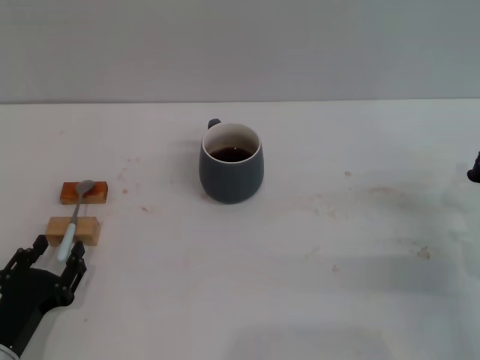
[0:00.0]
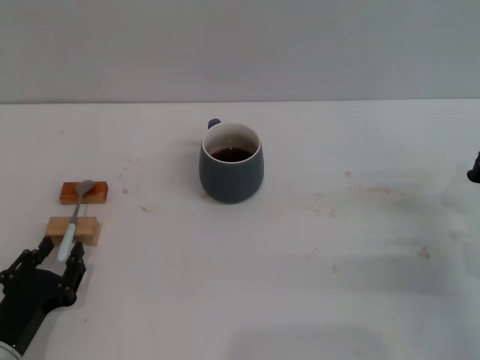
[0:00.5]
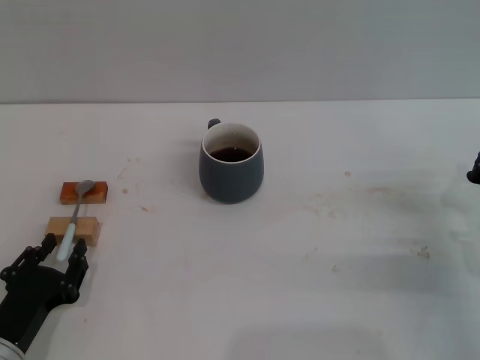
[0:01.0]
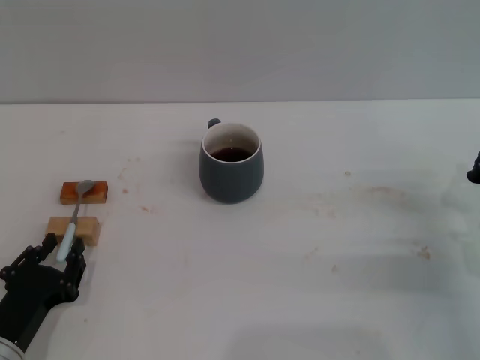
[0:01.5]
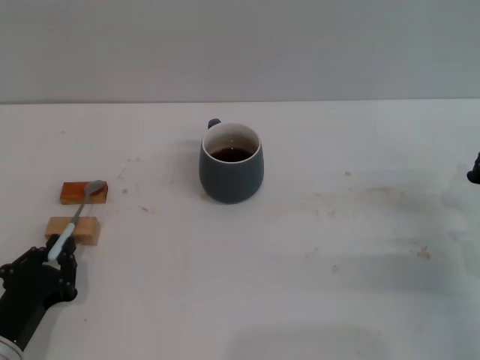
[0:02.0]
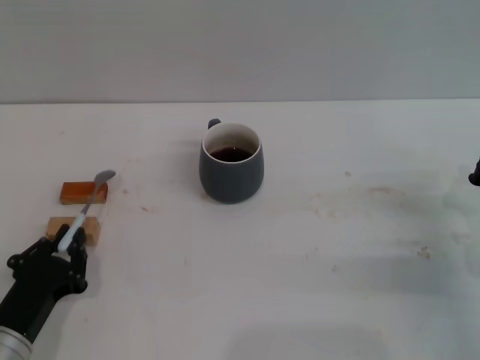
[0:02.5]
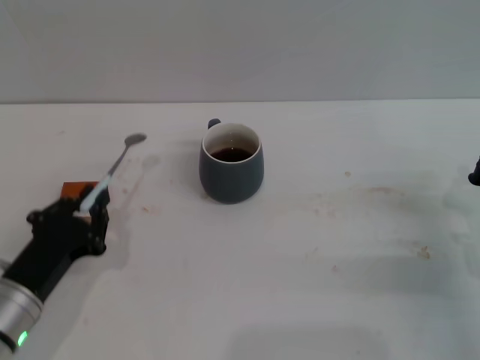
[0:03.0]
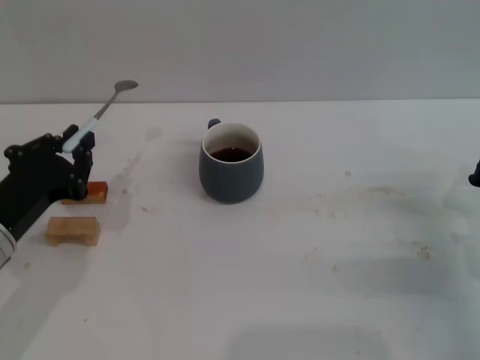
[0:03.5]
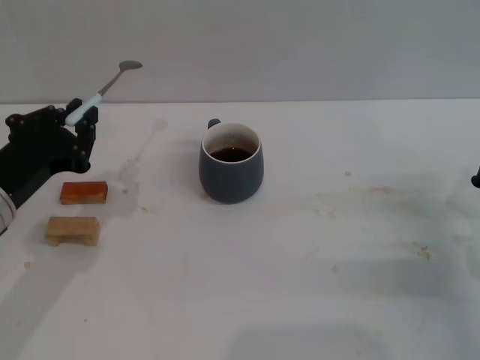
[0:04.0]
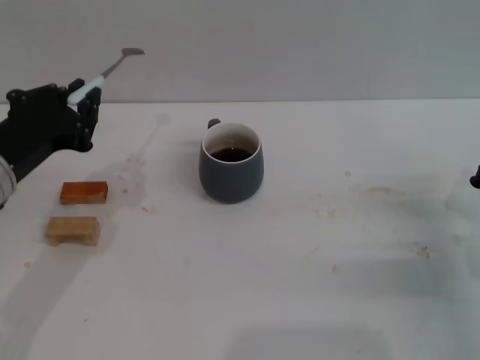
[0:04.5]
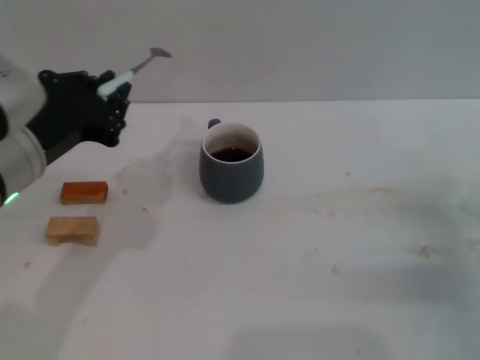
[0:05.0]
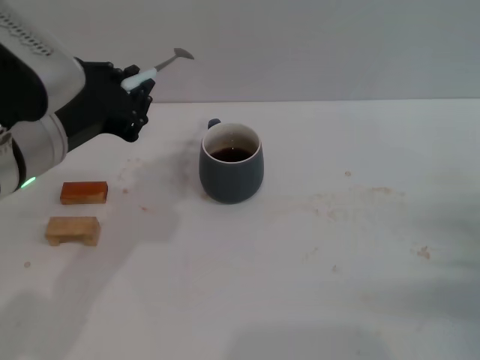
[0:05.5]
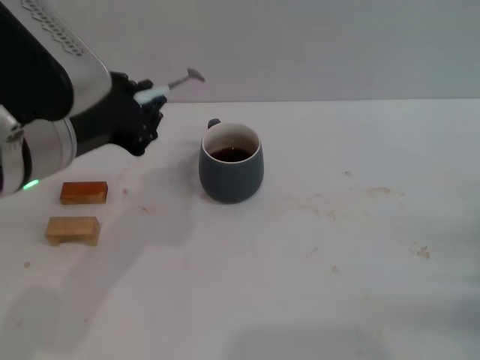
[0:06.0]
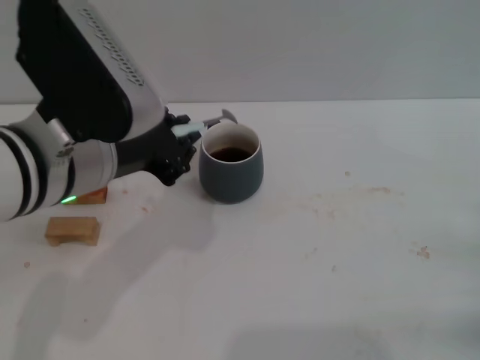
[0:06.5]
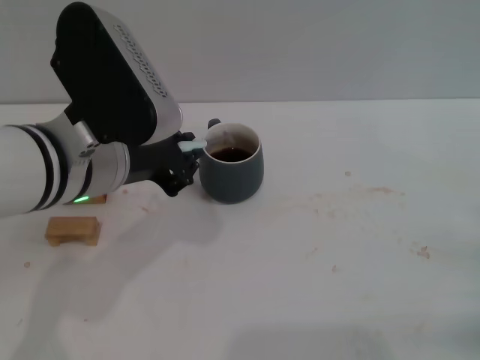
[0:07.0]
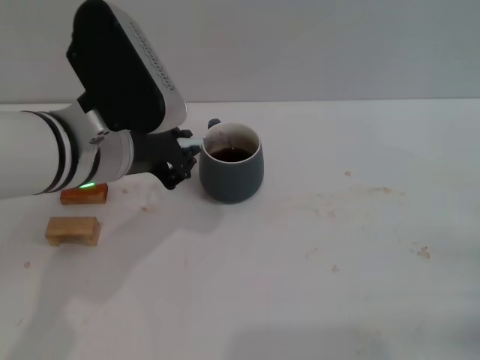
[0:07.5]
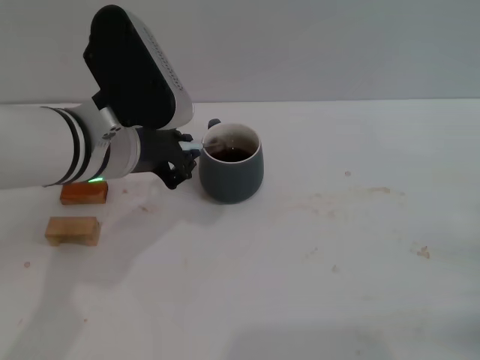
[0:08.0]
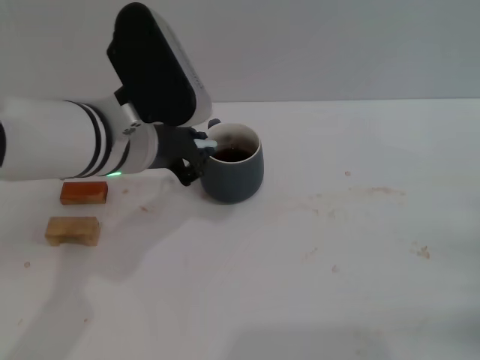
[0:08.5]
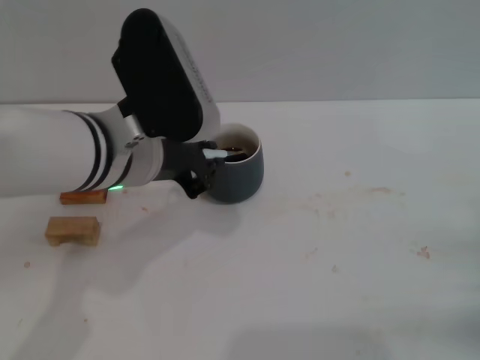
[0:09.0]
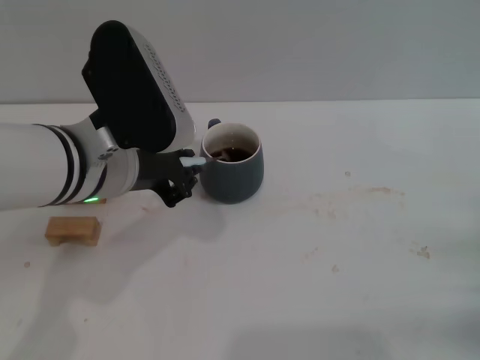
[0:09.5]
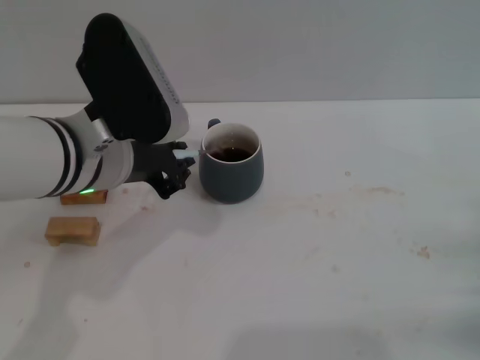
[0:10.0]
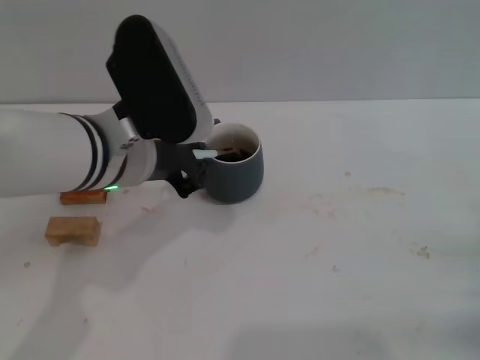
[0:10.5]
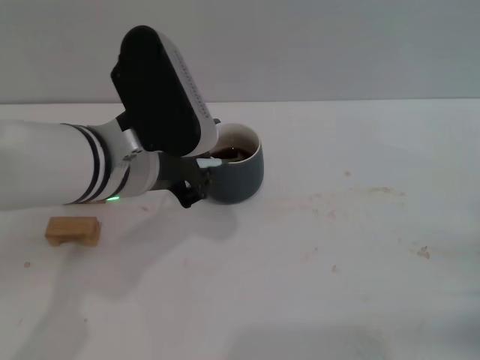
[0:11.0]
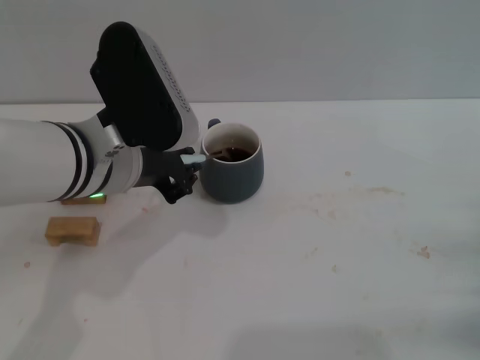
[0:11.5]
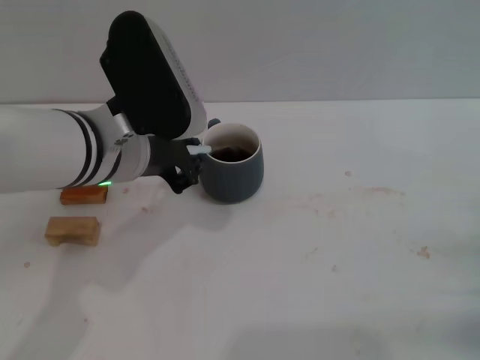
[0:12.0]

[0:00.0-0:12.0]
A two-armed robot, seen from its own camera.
Task of the whole recording: Move the grey cup to the center, lift the blue spoon, stir it three times in the cup, and put the spoon into the cup.
Step, 0:00.0 to 0:04.0: Pick up the spoon with the left gripper.
0:00.0 to 0:02.0: The left gripper closes its fingers.
0:02.0 to 0:04.0: The left gripper travels upward and forward by roughly 15 cm.
0:04.0 to 0:06.0: The right gripper shifts by approximately 5 cm. Meanwhile the left gripper moves upward and to the right, some 15 cm.
0:06.0 to 0:08.0: The left gripper shifts some 5 cm forward.
0:08.0 to 0:12.0: The grippers move only a little.

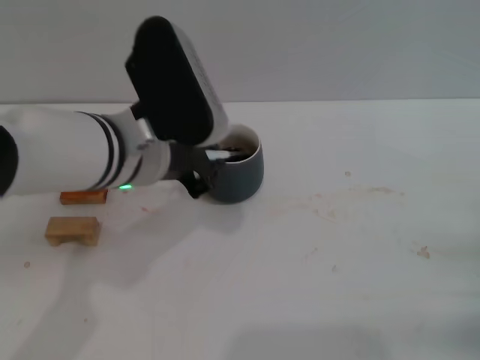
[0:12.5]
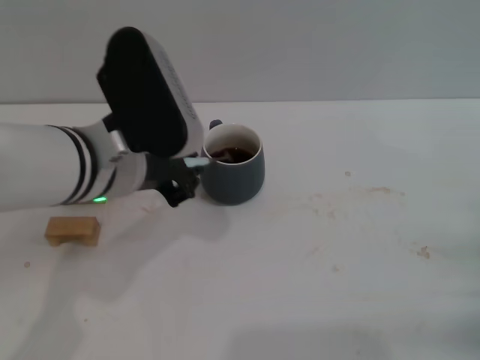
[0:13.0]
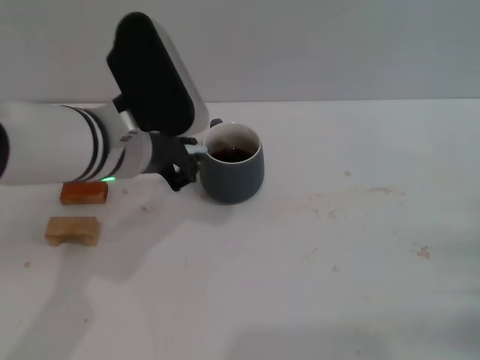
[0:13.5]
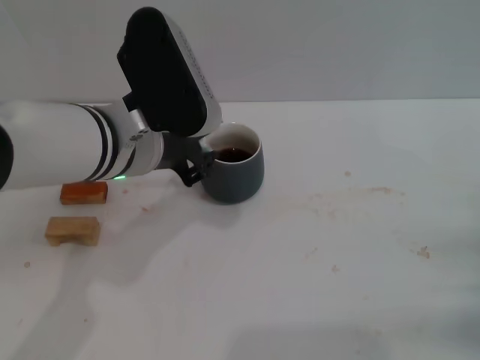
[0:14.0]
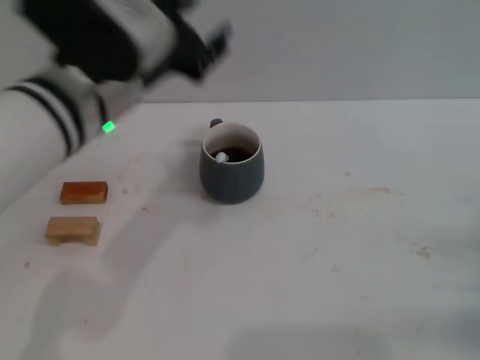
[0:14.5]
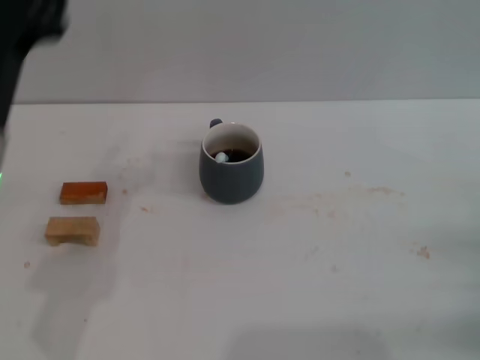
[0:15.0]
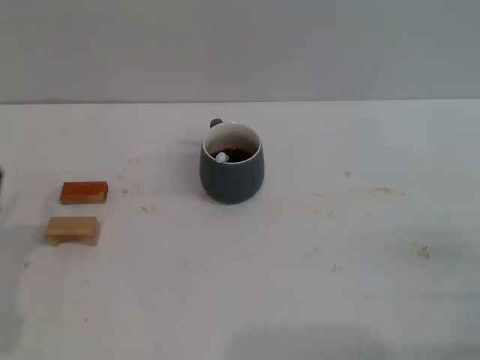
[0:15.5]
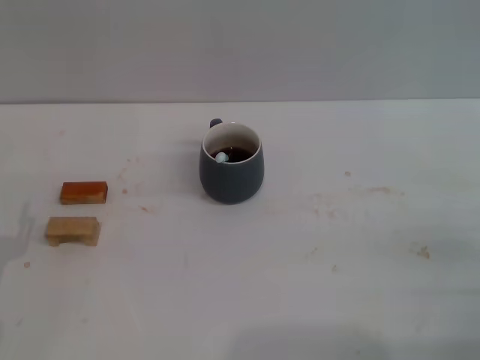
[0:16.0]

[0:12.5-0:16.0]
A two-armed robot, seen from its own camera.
Task of the whole recording: Move the grey cup to the center, lift the blue spoon, stir it three times in the cup, and put the spoon into the cup.
0:12.5 to 0:14.5: The left gripper opens.
0:14.5 to 0:16.0: The left gripper goes approximately 30 cm downward, to the left and backward.

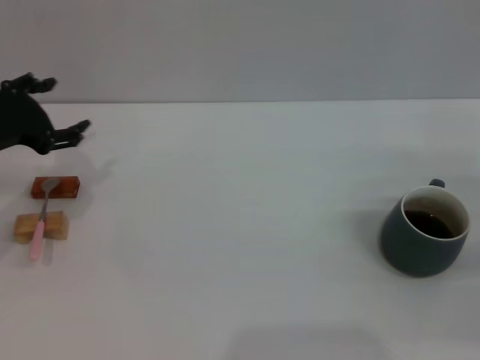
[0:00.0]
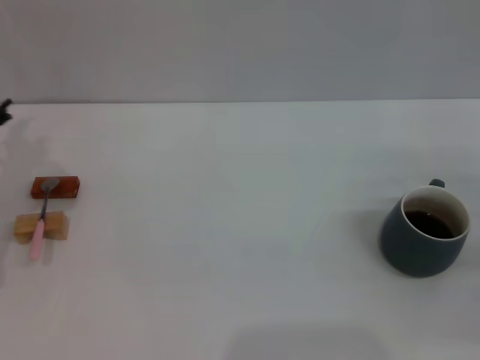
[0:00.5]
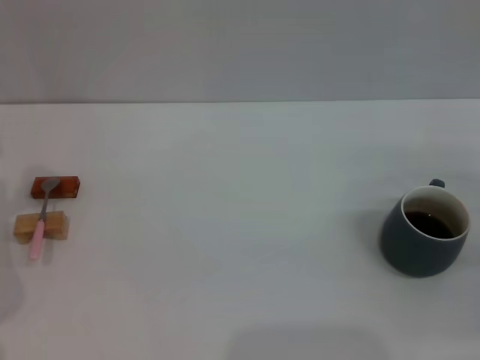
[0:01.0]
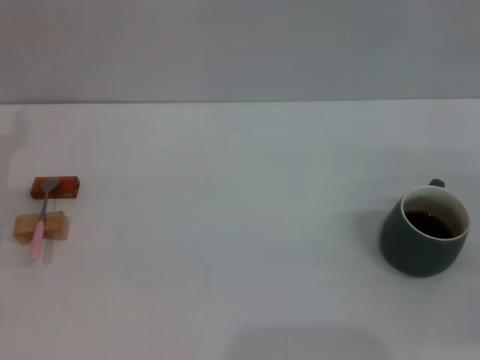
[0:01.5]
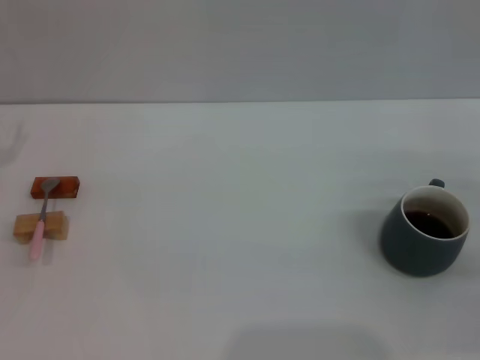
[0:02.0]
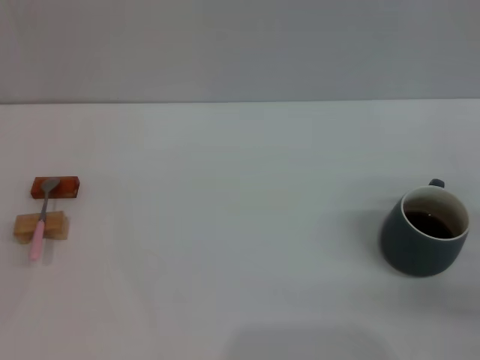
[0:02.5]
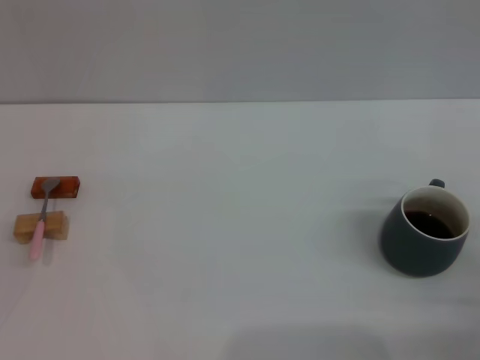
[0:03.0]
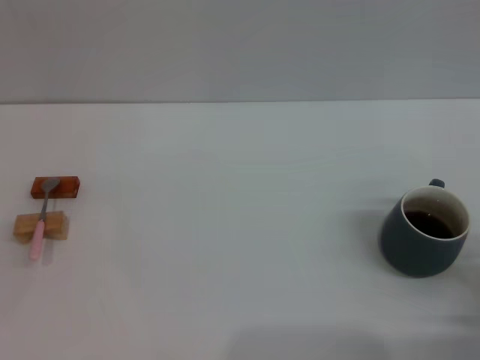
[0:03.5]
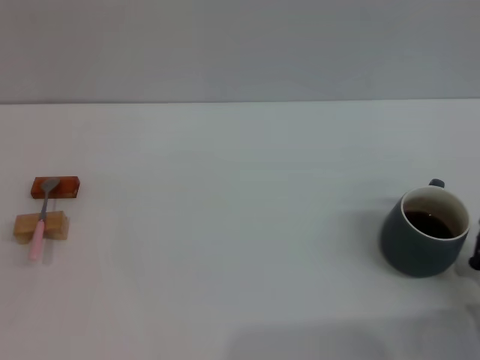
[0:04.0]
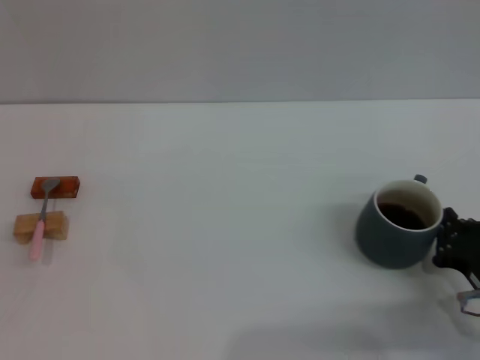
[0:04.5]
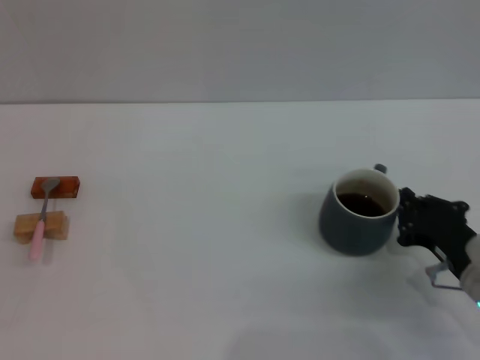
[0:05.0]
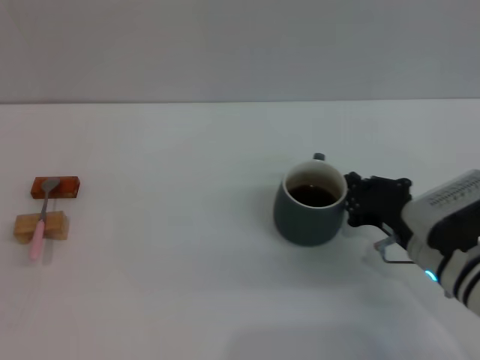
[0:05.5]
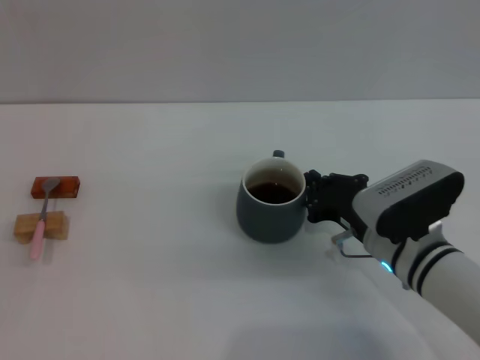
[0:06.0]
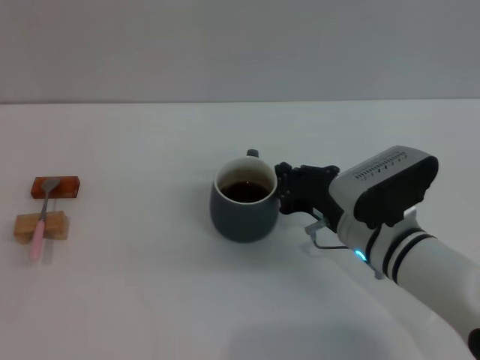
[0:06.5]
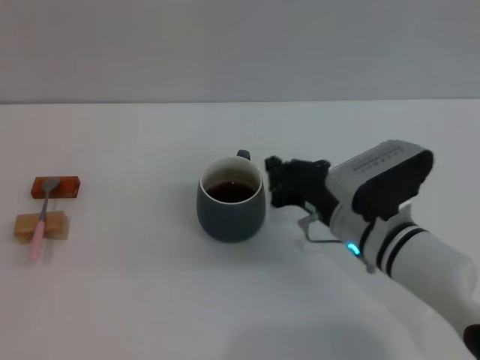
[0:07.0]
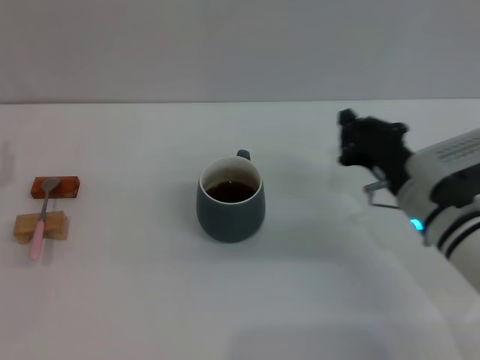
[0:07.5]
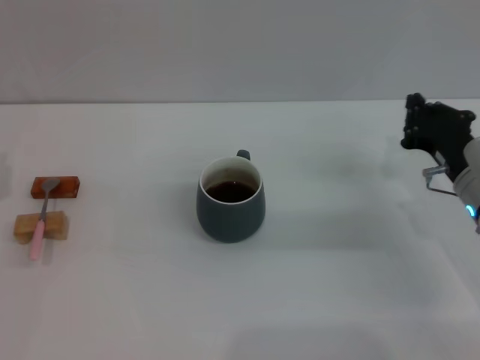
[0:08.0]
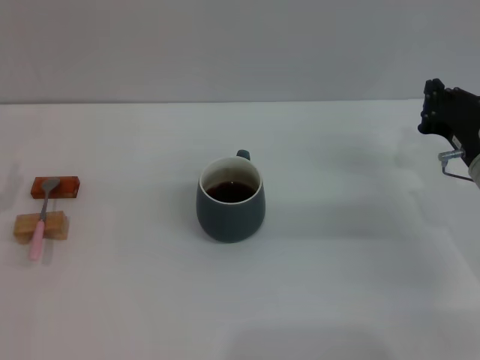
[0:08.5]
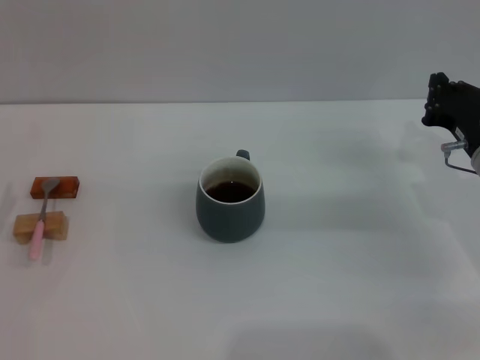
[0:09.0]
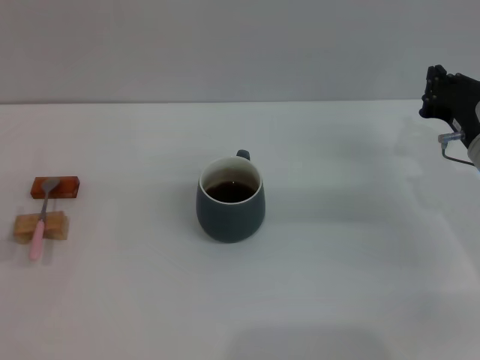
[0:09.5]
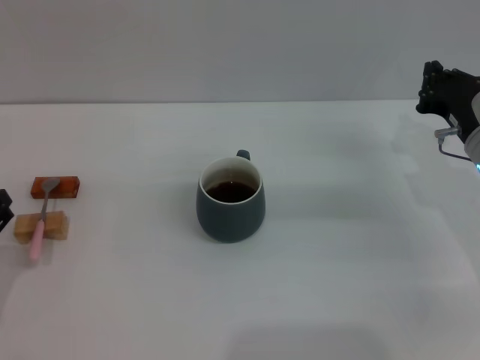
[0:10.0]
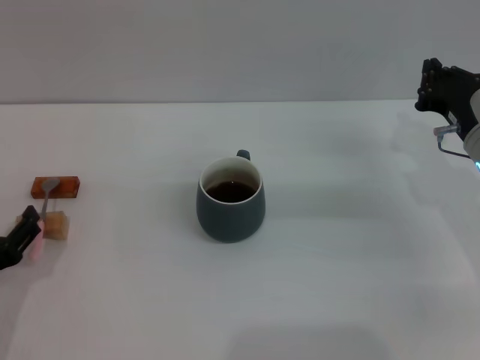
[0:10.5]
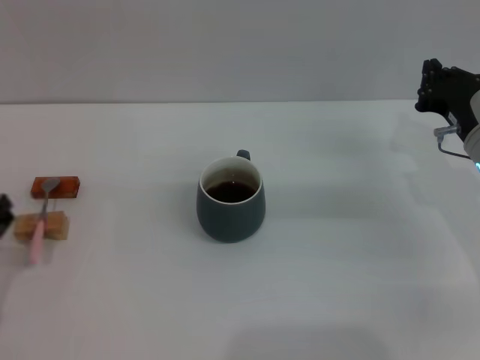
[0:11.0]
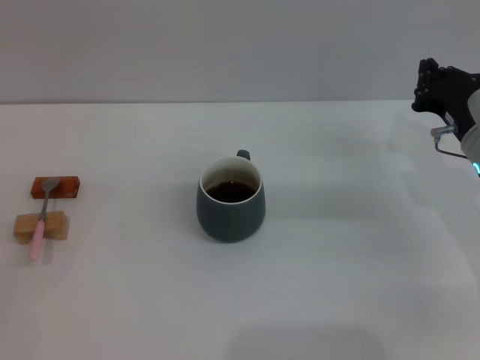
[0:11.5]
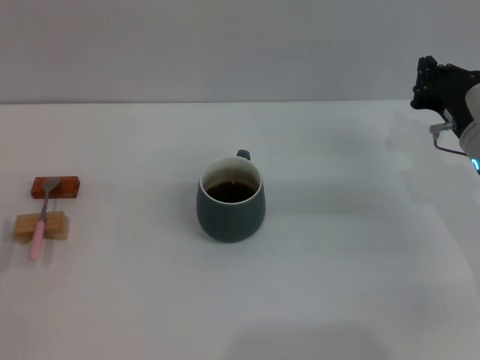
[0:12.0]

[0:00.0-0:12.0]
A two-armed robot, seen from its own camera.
Task of the whole recording: Move the grey cup to the center, lift the pink spoon, stir it three times in the cup, and put the spoon into the cup.
Step, 0:00.0 to 0:07.0: Move the cup with coffee to the center of view with the right gripper.
0:00.0 to 0:02.0: The left gripper goes about 5 cm to the left.
0:02.0 to 0:04.0: The right gripper moves backward, downward and to the left, about 15 cm, and closes up.
0:04.0 to 0:06.0: The right gripper is displaced to the left and forward by some 15 cm.
0:06.0 to 0:08.0: The right gripper heads to the right, covering approximately 10 cm. Meanwhile the left gripper goes about 5 cm to the right.
